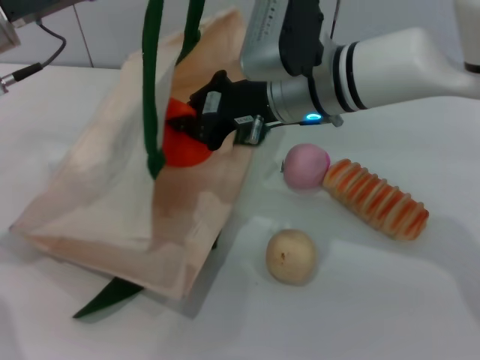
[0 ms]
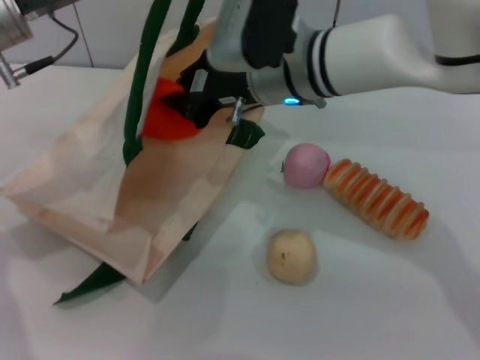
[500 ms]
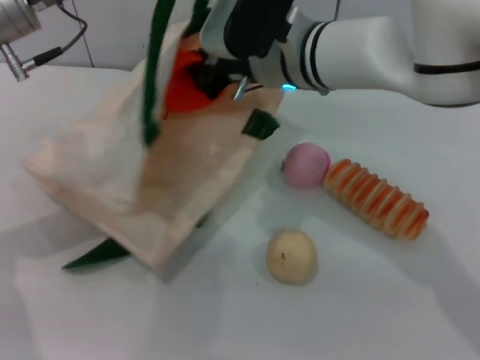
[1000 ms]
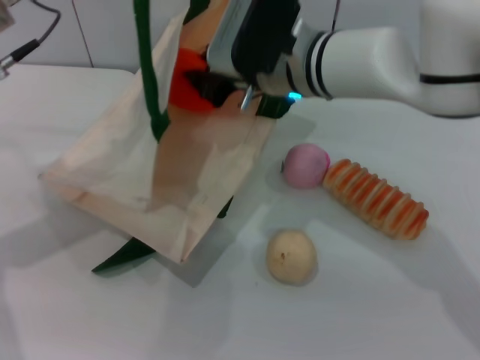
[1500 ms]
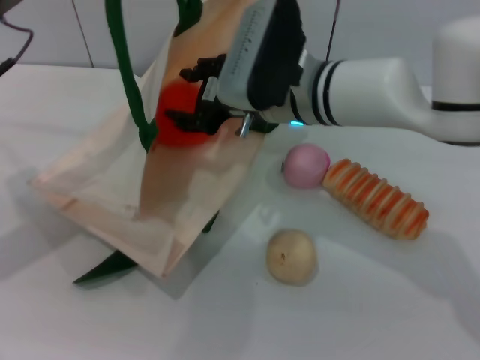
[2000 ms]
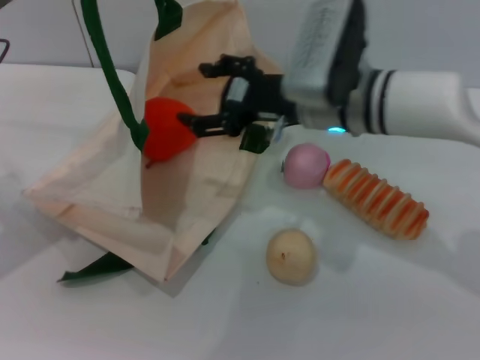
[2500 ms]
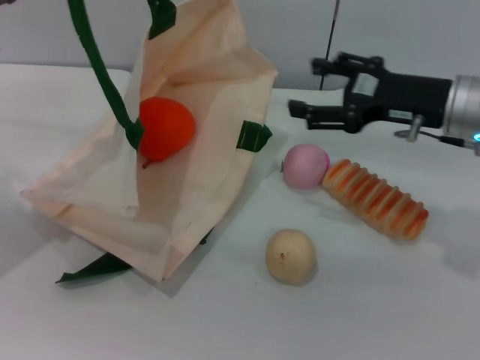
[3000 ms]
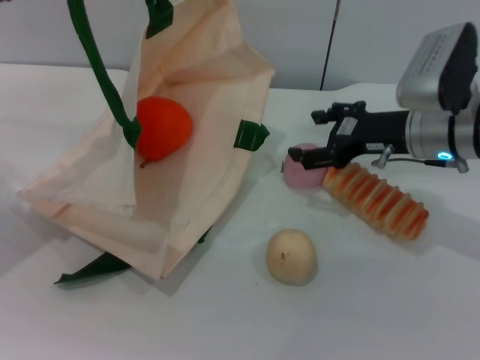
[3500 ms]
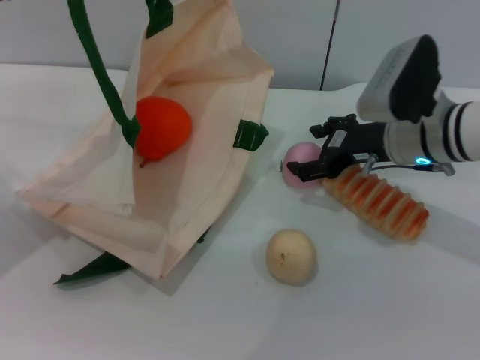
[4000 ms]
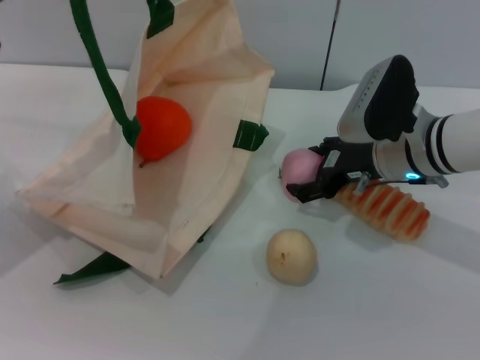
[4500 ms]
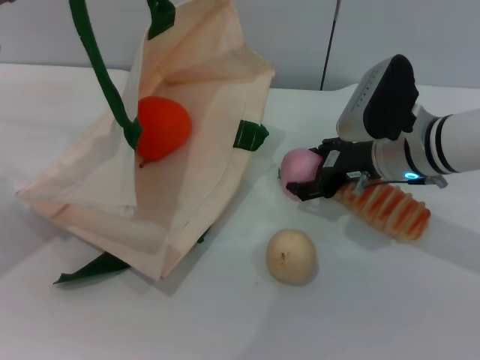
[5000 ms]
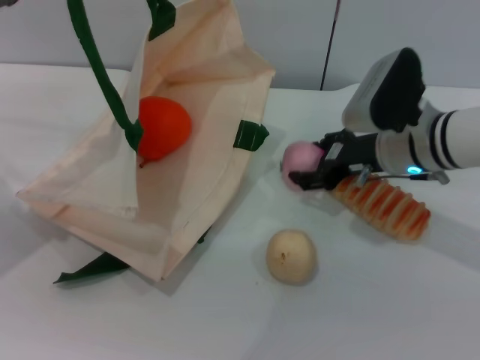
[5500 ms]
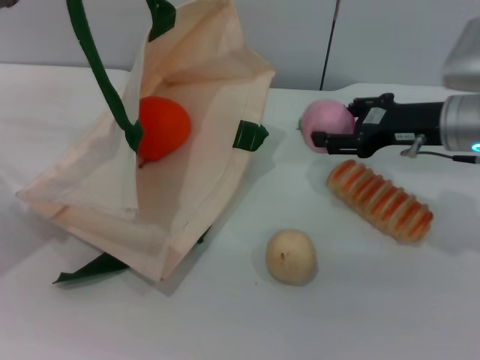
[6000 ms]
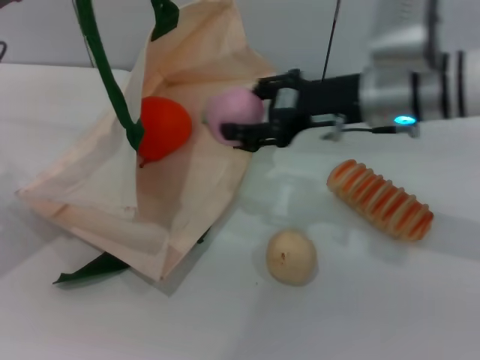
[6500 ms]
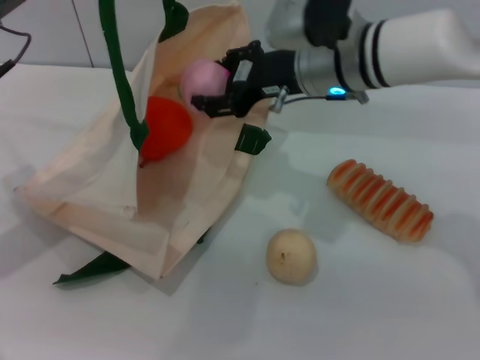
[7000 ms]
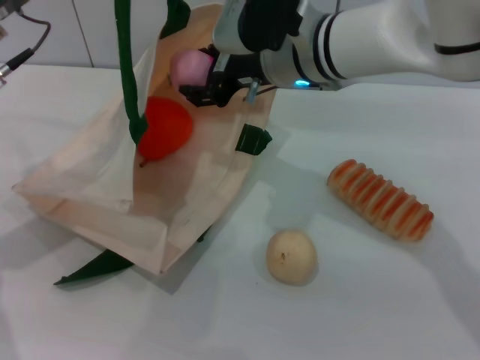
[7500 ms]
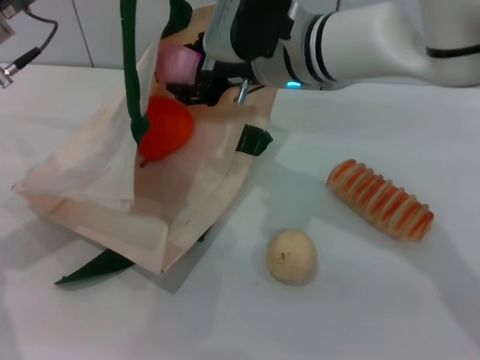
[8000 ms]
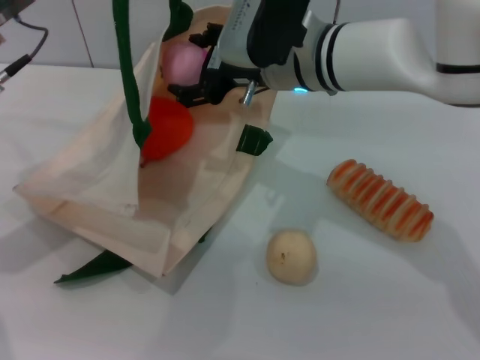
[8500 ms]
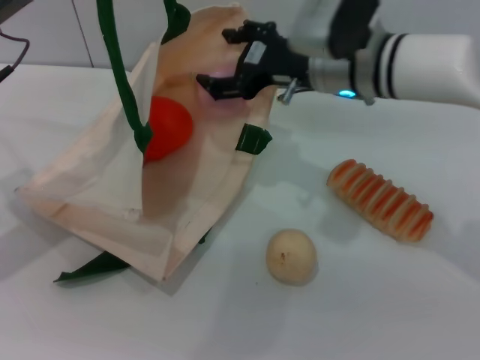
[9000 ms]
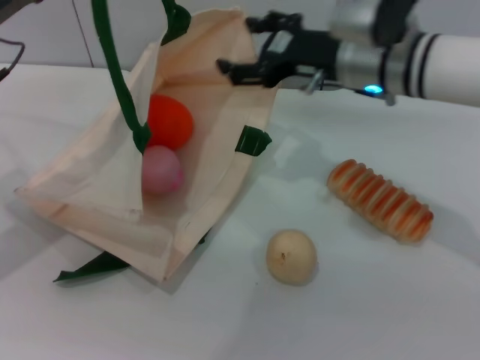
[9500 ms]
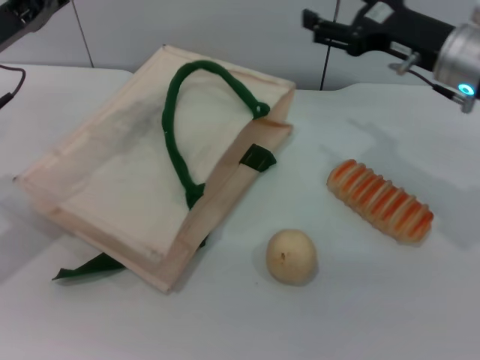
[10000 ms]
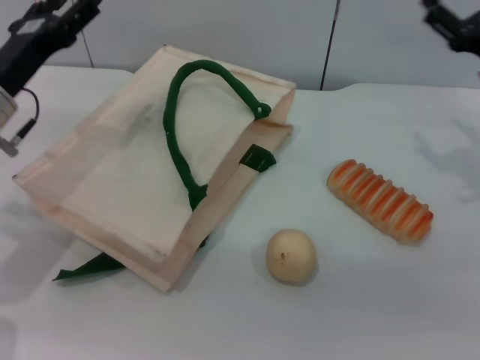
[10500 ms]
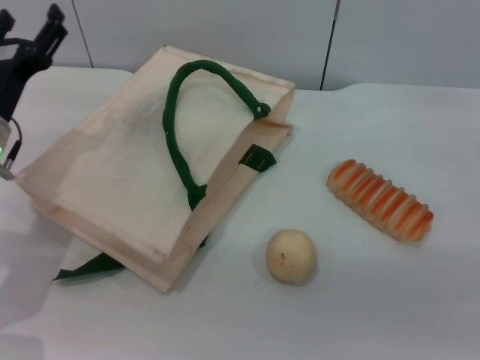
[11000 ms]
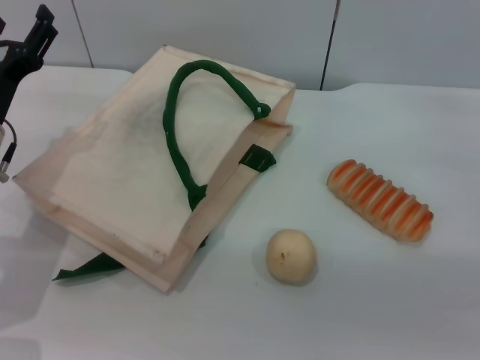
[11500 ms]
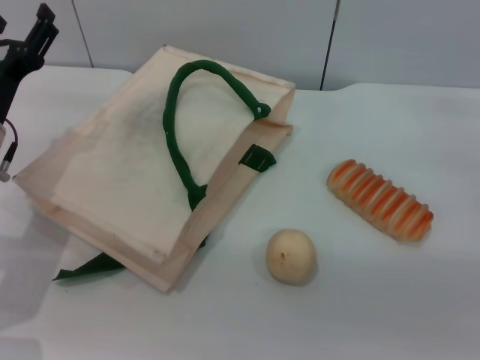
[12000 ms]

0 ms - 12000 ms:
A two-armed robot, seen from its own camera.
Task of the whole recording: pick up the orange and peach from the table and place it in the white handbag.
Step, 0 ms - 3000 ms: Place the orange into the woven bag with the right gripper.
Step, 3500 ms - 6000 ms: Pick up the peach with the right gripper.
Step, 6500 ms - 9000 ms: Place the peach into the woven bag with the right gripper.
Step, 9500 ms - 10500 ms: Lower the woven bag with the left gripper to close it.
0 ms - 2000 ms: The right gripper opens.
2000 ms - 4000 ms: The right gripper travels to the right by about 15 cm, and opens its fingers.
4000 ms - 6000 ms: The right gripper shifts by roughly 5 cm.
6000 ms - 8000 ms: The right gripper is displaced to the left by approximately 20 cm. Meanwhile the left gripper changes place by roughly 5 cm.
8000 ms - 10000 ms: The left gripper shifts by about 5 cm, and opens. The right gripper goes about 20 cm to the right.
10000 ms - 12000 ms: The right gripper goes about 15 cm to the right, downward and backward. The left gripper moves downward, approximately 5 cm, and opens its fingers.

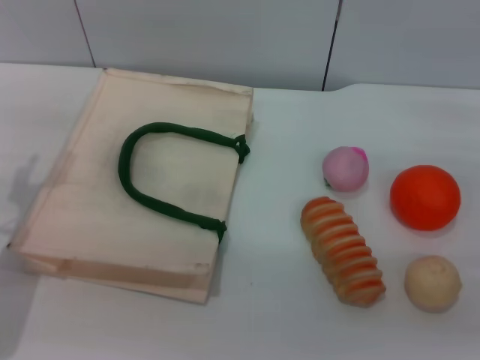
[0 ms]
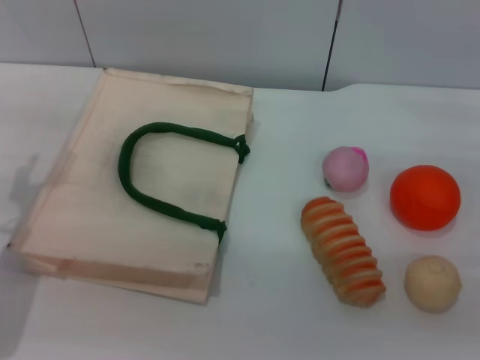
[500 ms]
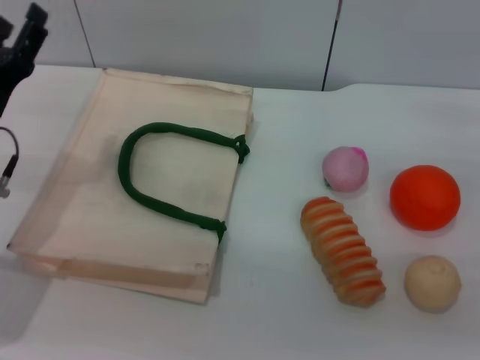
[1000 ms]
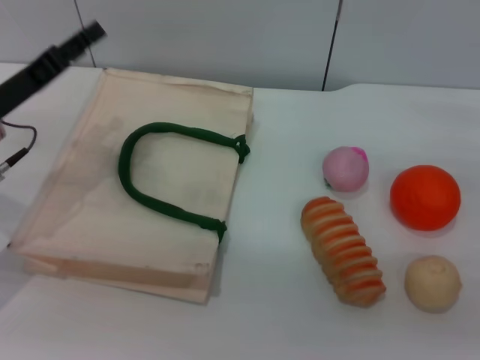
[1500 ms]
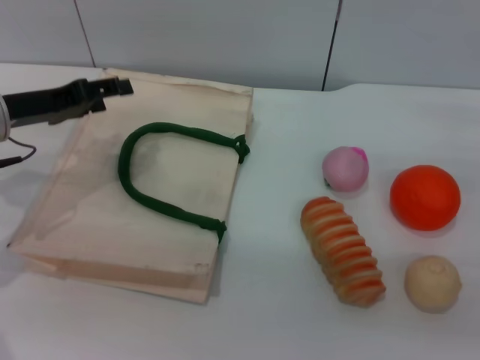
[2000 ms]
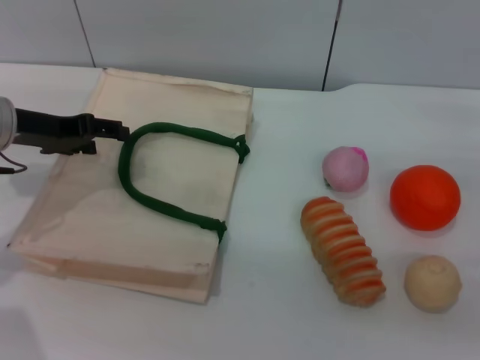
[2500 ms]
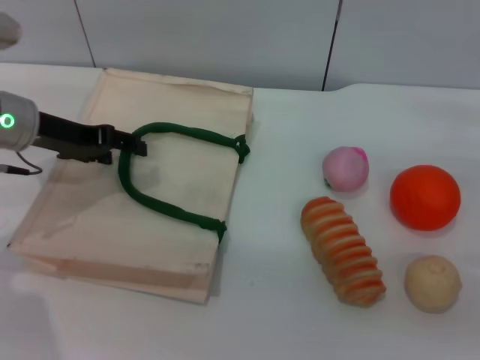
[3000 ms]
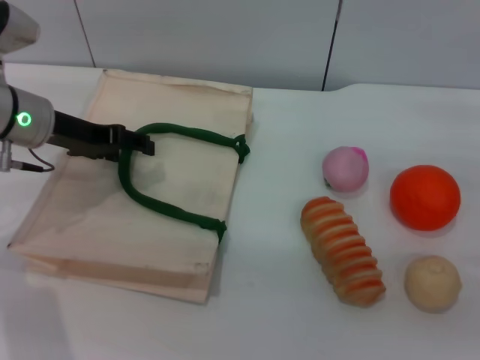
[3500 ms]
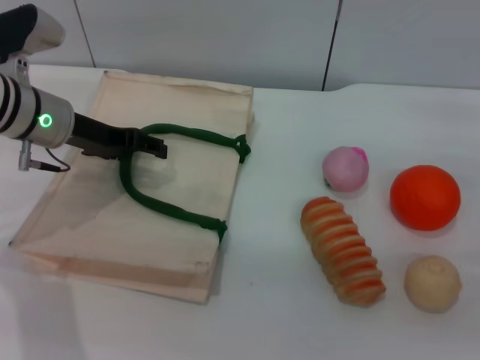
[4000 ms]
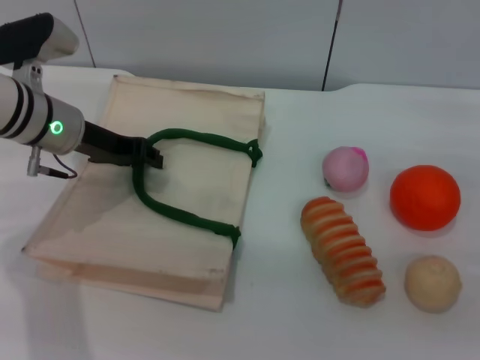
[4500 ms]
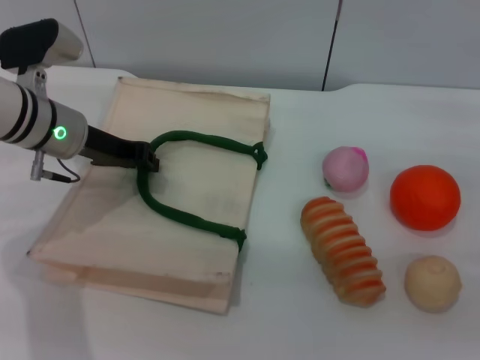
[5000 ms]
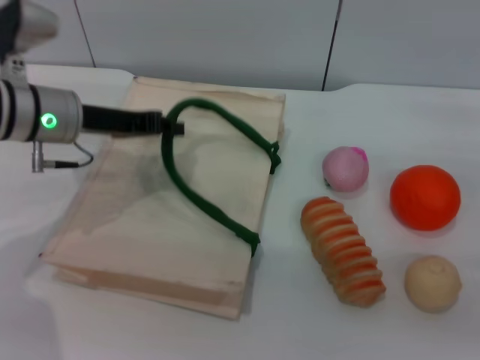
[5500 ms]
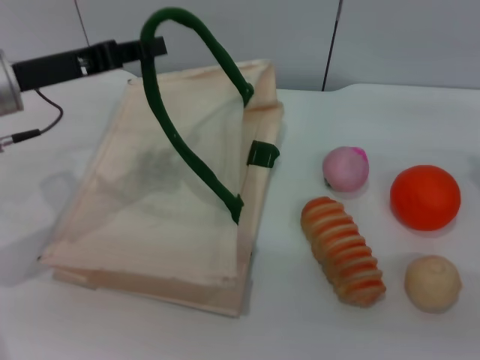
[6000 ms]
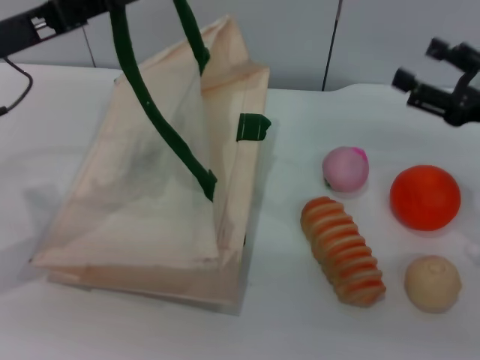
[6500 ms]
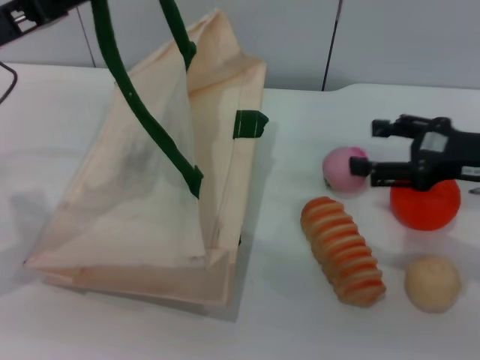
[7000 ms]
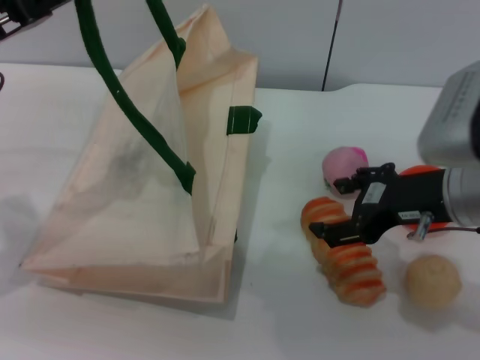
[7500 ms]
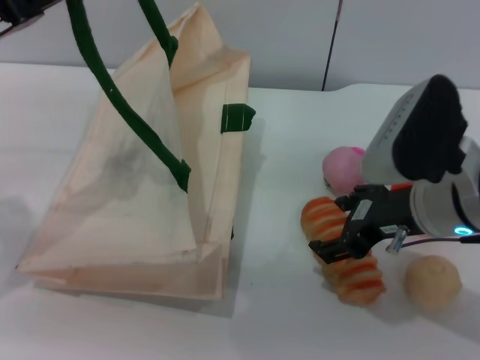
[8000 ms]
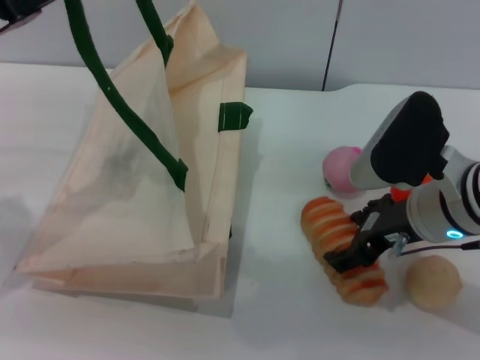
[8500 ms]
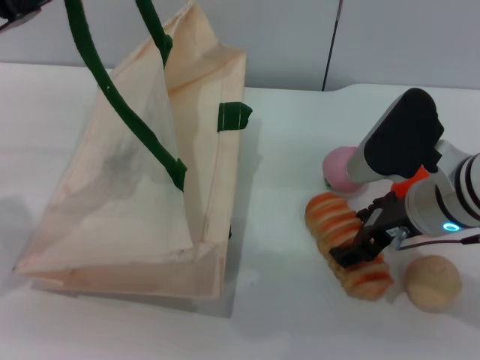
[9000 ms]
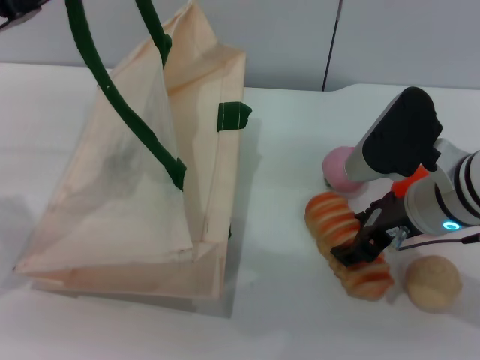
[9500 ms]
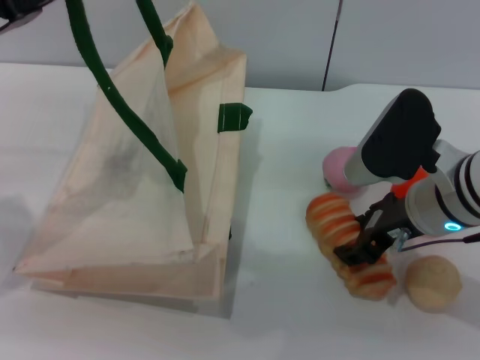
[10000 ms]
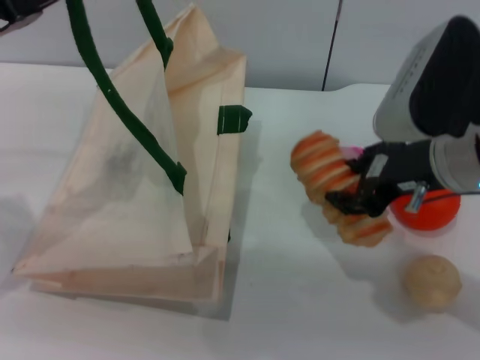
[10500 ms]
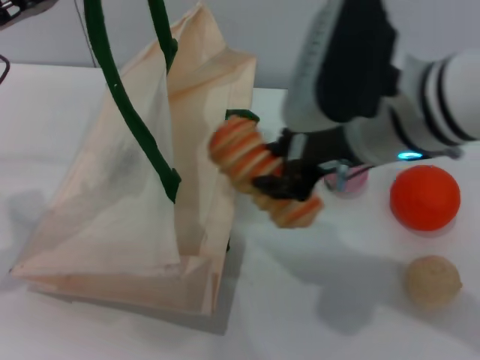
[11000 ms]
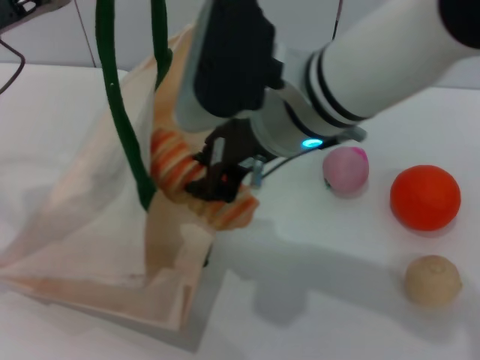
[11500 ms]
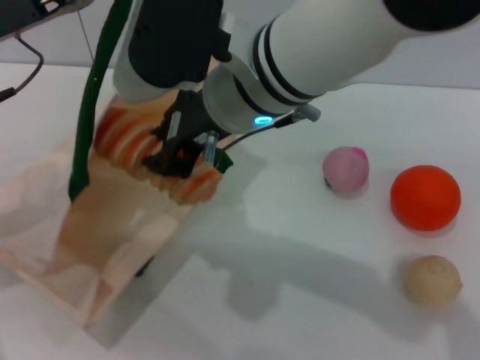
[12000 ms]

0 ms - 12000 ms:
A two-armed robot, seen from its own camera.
Task of the whole recording: pick up the bread and egg yolk pastry from the table and place it in the white handbag.
Step, 0 ms - 6500 ms: Lift the woven bag with the left gripper to open it.
Step, 7000 ms - 10000 ms: Pick up the bread with the right gripper.
0 ms - 2000 ms: The left gripper is displaced forward and upward by about 10 cm.
2000 ms - 4000 ms: The left gripper moves to the right, some 5 cm.
4000 ms - 6000 ms: The left gripper moves about 5 cm, and closes.
6000 ms - 8000 ms: The left gripper ends up approximately 5 cm from where it was. The right gripper moves to the left, approximately 15 cm.
8000 ms - 10000 ms: The grippers make only small movements.
10000 ms - 12000 ms: The right gripper heads to the left and upward, covering some 20 cm, and closes up.

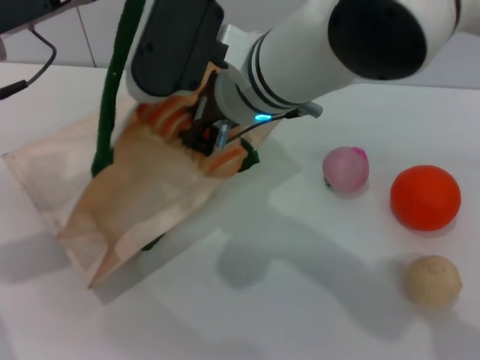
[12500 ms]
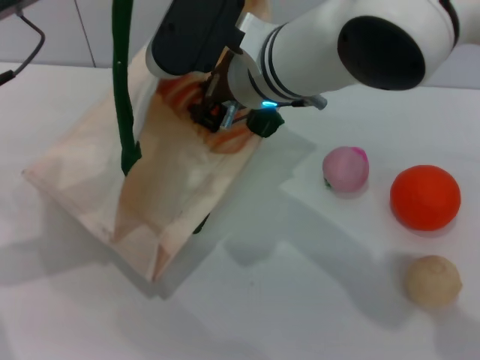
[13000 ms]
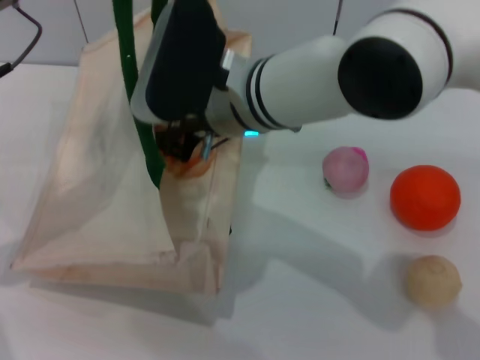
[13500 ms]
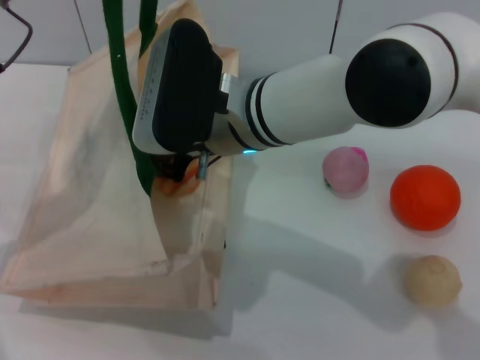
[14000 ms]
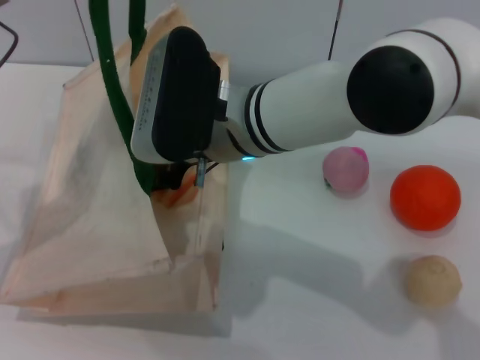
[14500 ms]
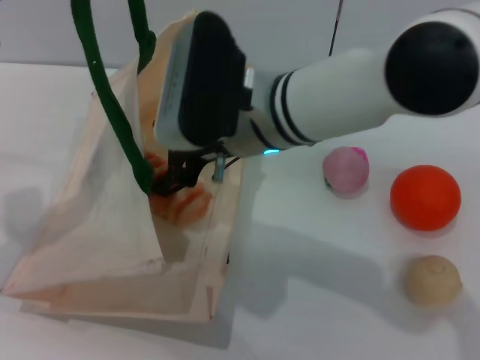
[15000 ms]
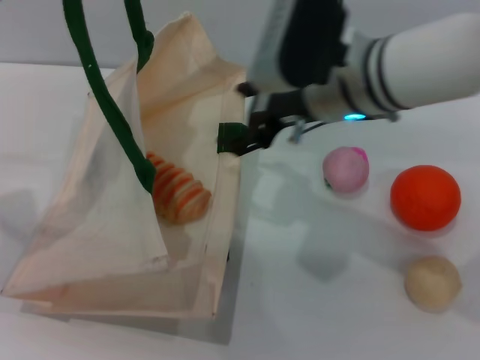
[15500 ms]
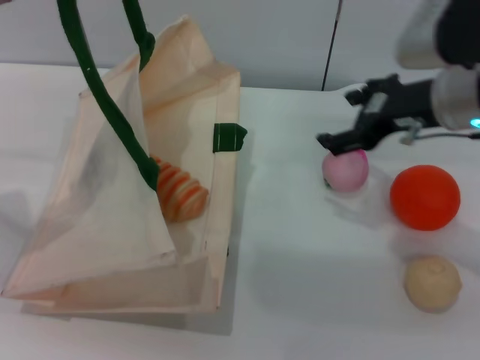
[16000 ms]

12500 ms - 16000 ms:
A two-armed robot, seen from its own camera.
Task of the whole recording: pick up the bread and egg yolk pastry from the table and place it in the white handbag.
Step, 12500 ms - 15000 ms: Place the bread into the woven bag with the right gripper.
12500 ms - 14500 ms: The right gripper opens up.
14500 ms - 16000 ms: The right gripper is displaced to the right by some 20 cm, and opens its fingers.
